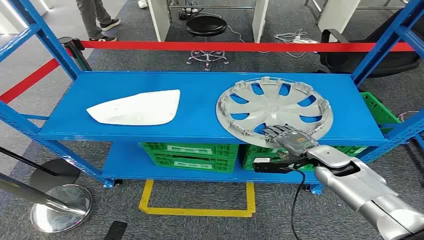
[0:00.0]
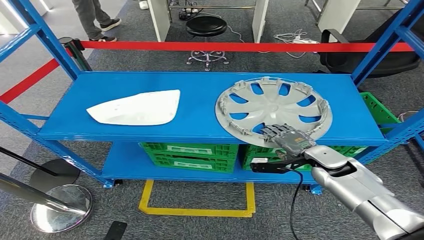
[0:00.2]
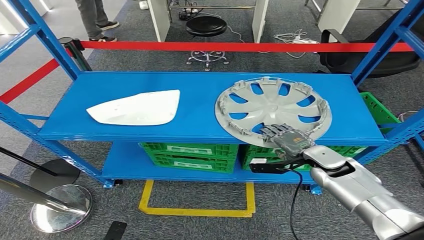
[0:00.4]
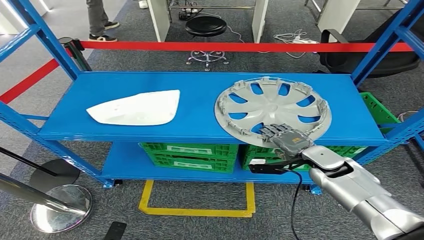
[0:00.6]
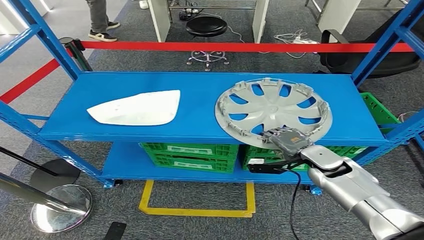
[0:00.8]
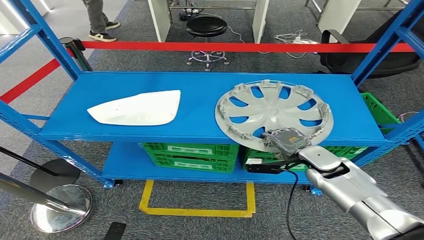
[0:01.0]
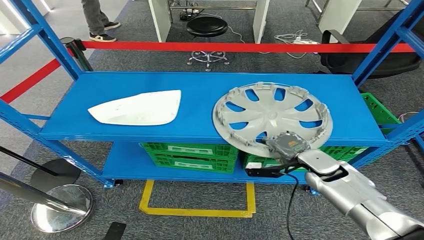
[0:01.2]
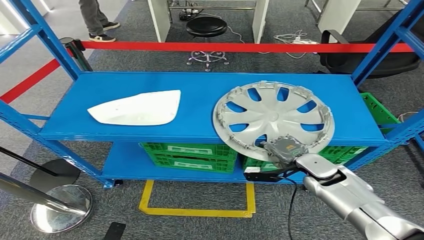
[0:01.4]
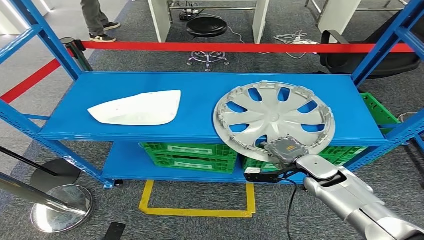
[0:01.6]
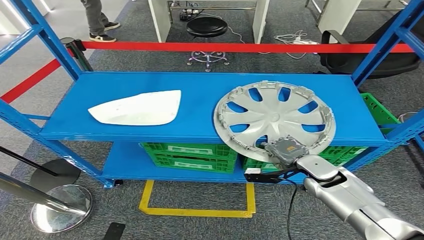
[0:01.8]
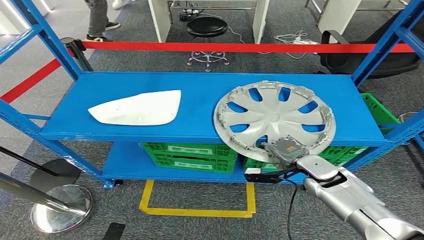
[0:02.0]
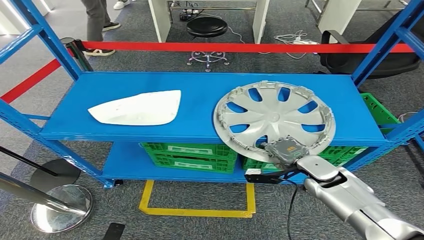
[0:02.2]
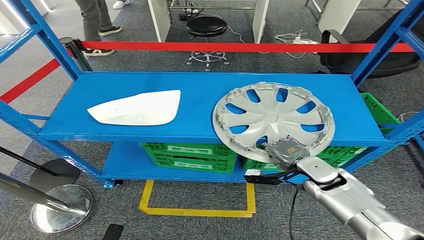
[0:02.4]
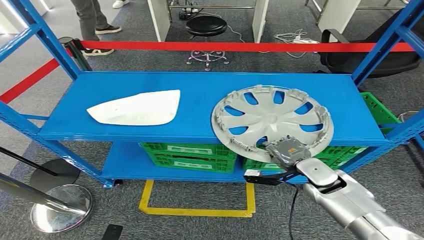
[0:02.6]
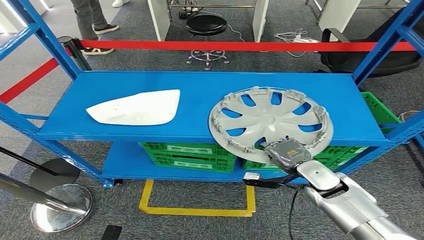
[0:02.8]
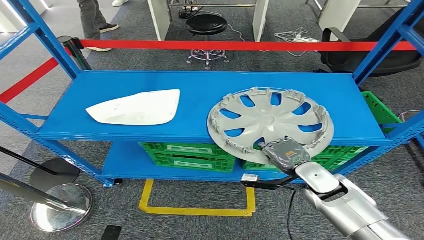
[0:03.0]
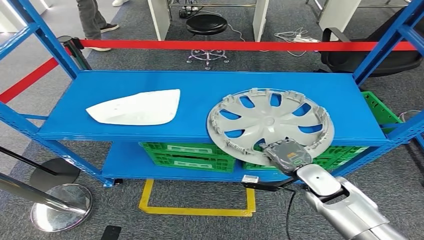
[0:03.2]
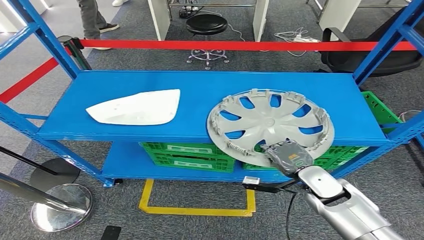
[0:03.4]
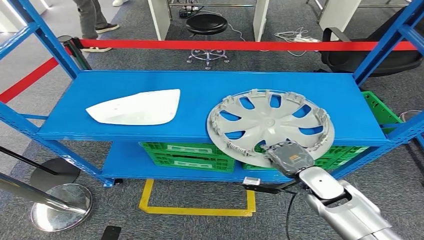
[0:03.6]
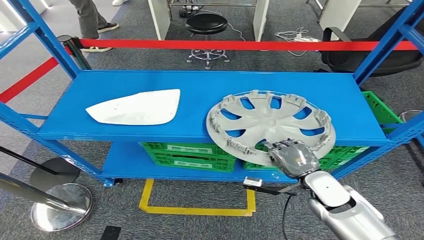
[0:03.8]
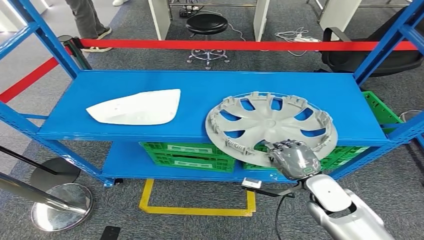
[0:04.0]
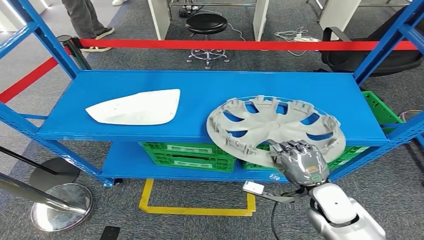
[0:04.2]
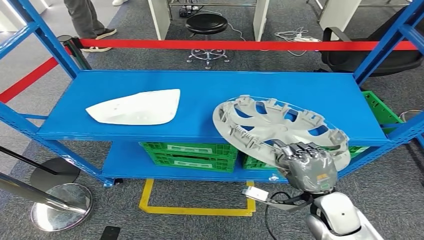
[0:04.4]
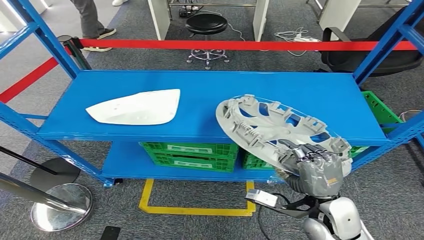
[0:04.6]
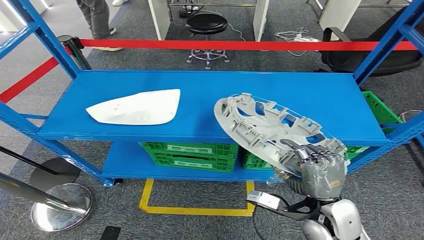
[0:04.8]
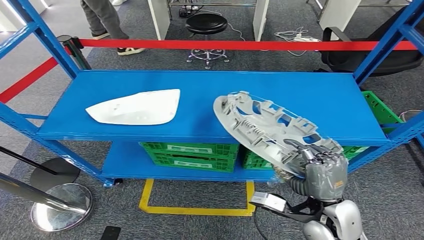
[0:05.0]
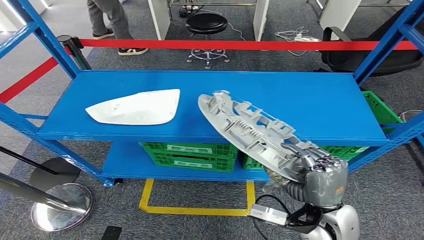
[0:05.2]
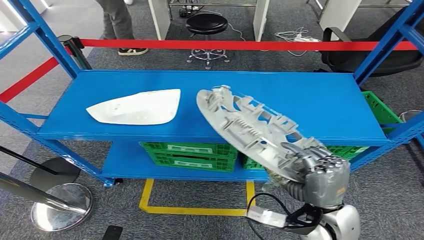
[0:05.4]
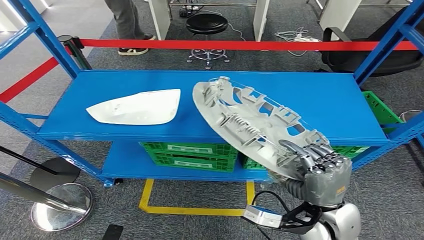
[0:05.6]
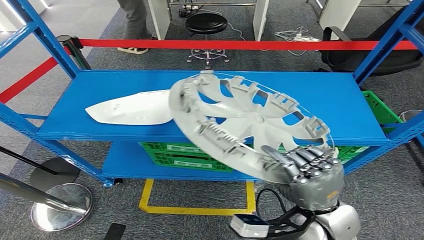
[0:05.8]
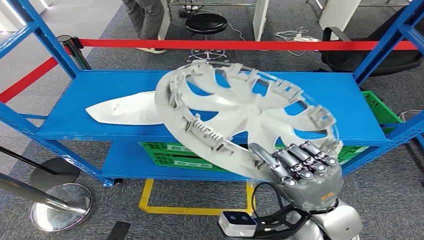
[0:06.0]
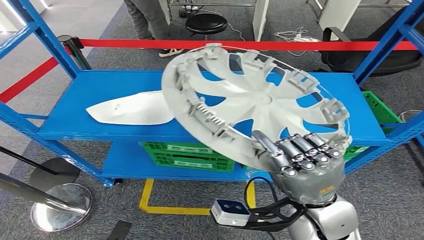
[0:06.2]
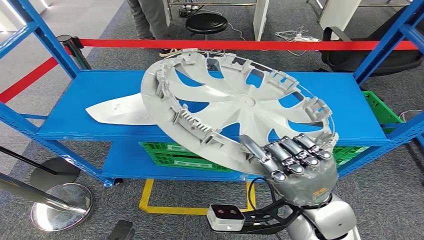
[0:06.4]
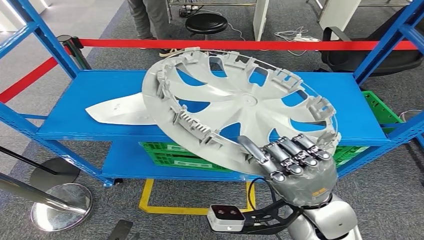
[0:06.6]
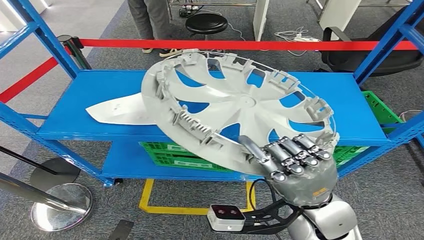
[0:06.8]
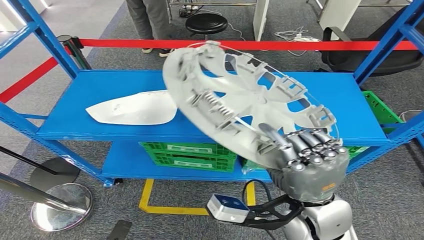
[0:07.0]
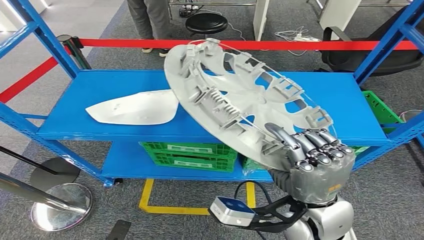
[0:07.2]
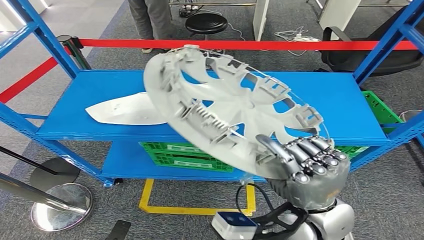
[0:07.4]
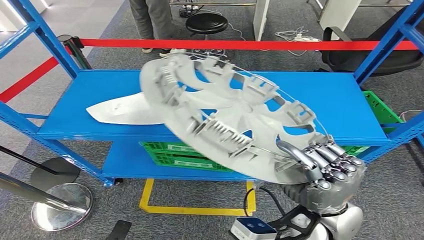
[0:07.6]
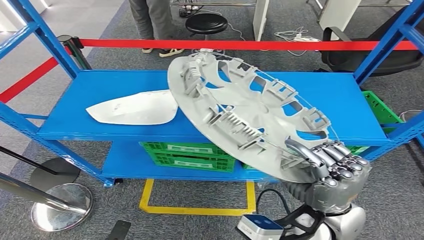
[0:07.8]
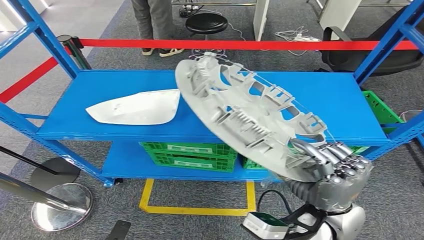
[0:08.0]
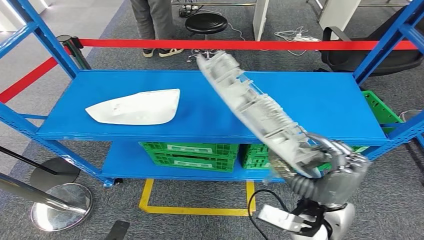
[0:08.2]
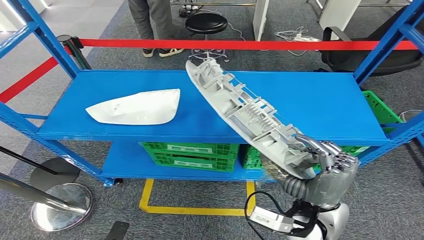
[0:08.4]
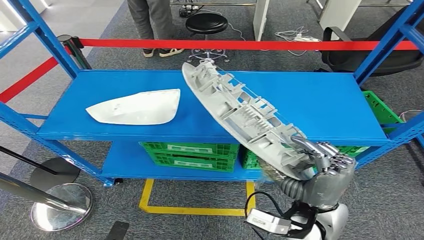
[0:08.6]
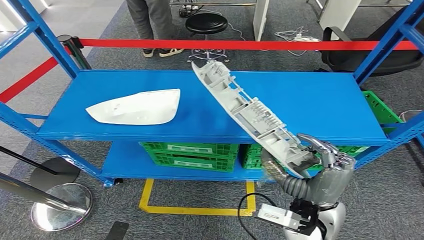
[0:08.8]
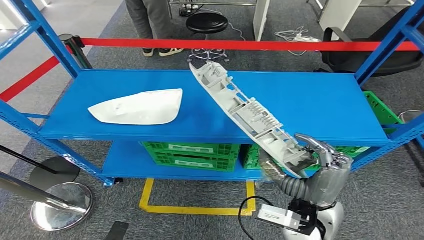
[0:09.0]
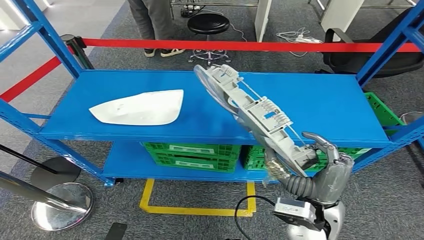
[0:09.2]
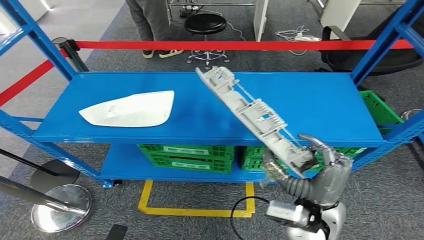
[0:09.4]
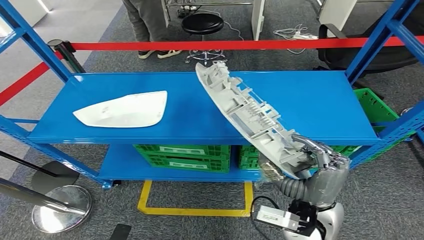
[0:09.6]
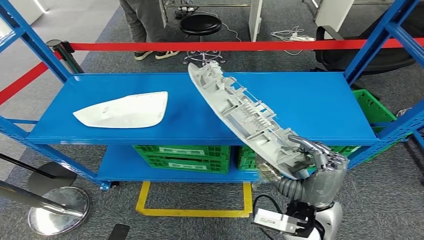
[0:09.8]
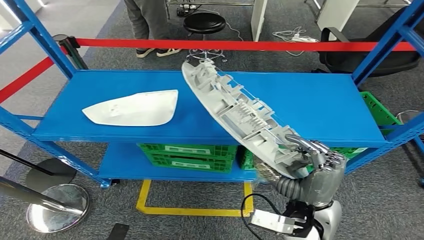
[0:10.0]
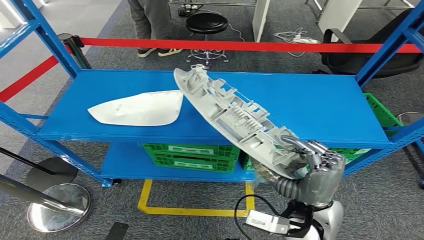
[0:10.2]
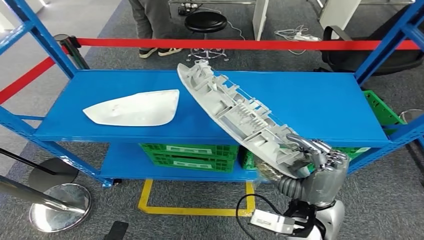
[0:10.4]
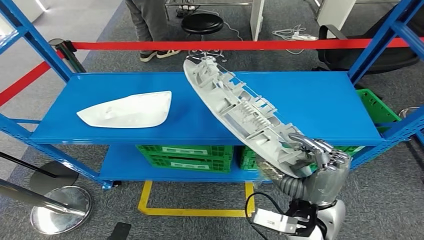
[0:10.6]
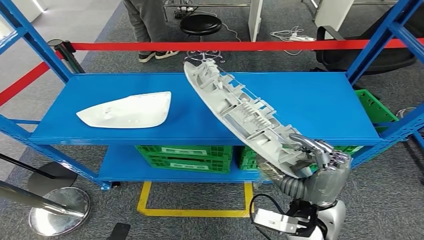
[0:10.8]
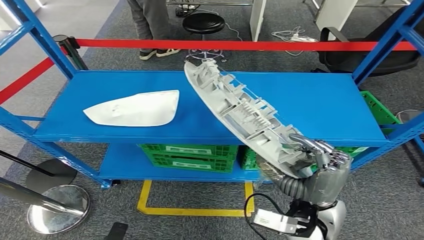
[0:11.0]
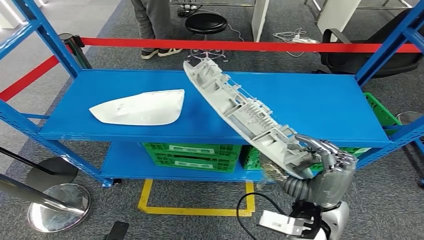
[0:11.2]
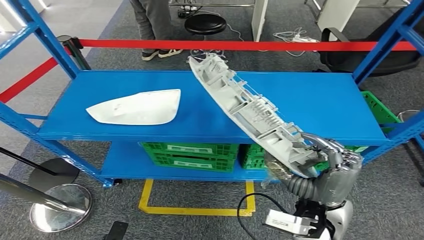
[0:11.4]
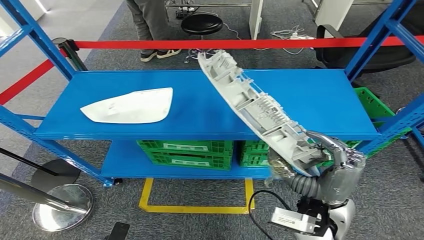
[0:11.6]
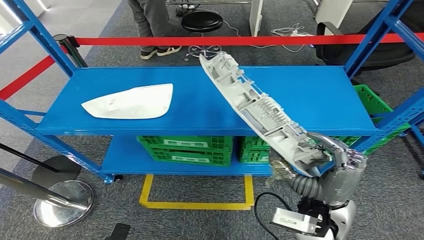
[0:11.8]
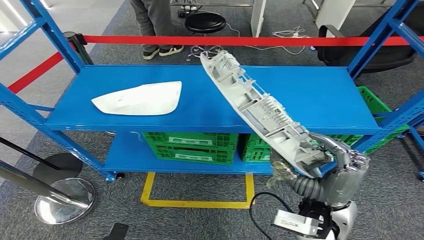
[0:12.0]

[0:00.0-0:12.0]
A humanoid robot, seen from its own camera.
Step, 0:00.0 to 0:10.4: Pick up the small component from the shelf.
0:01.6 to 0:03.0: There are only small adjustments of the hands.
0:03.0 to 0:04.4: The right hand shifts approximately 10 cm backward.
0:06.0 to 0:07.6: The hands move only a little.
0:09.0 to 0:10.4: The hands stay close to where they were, moving slightly.

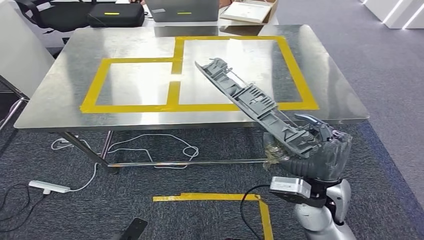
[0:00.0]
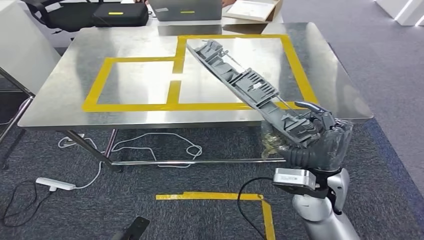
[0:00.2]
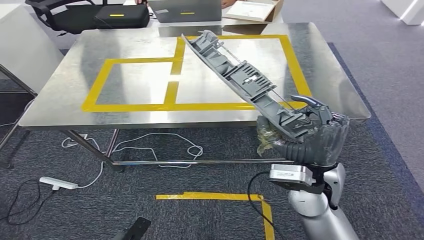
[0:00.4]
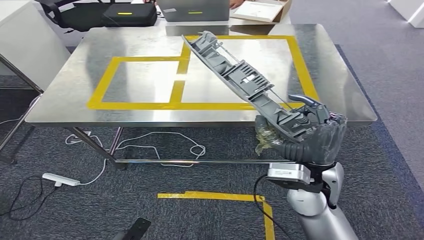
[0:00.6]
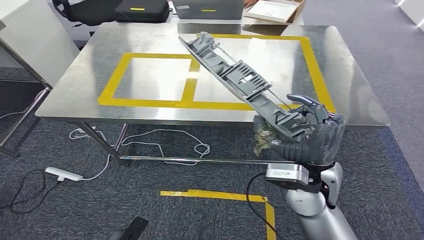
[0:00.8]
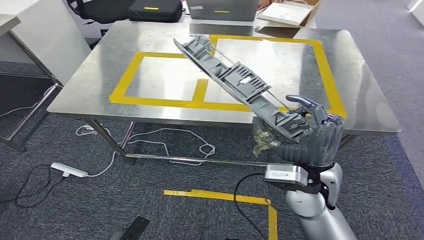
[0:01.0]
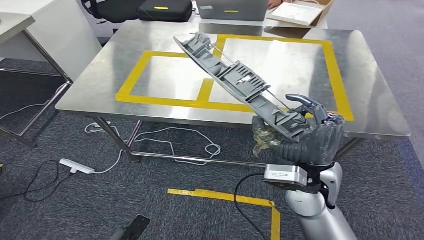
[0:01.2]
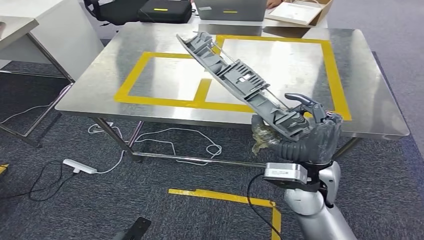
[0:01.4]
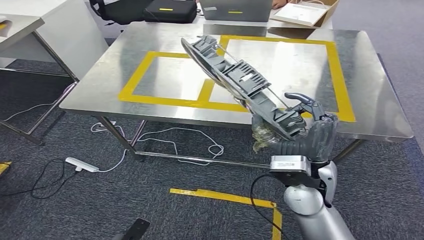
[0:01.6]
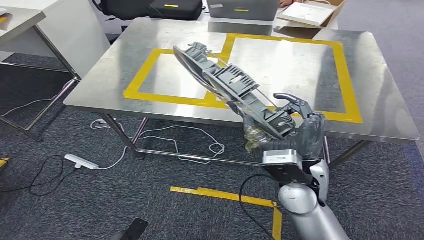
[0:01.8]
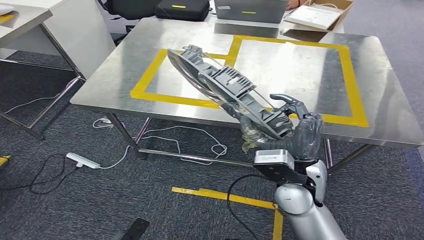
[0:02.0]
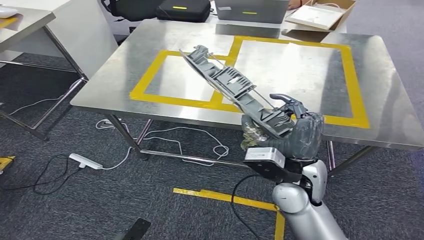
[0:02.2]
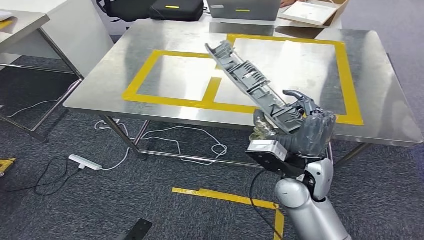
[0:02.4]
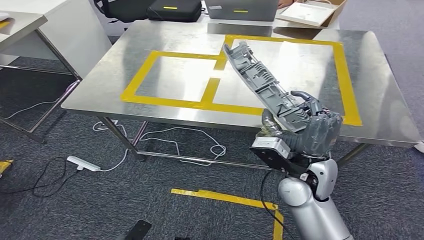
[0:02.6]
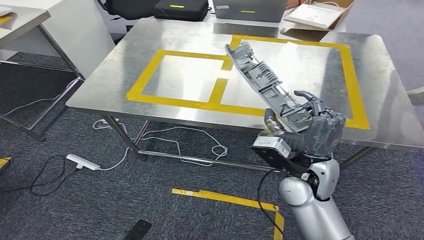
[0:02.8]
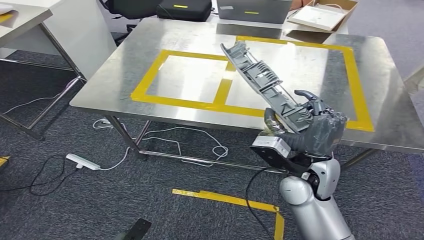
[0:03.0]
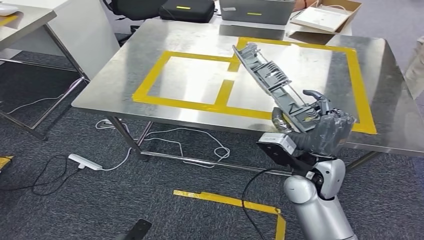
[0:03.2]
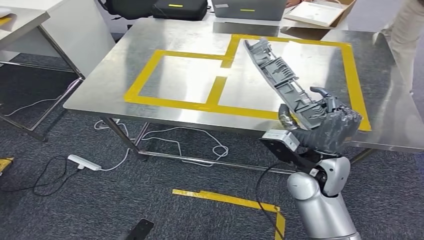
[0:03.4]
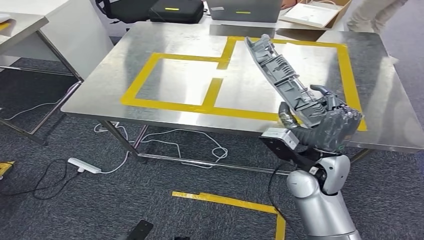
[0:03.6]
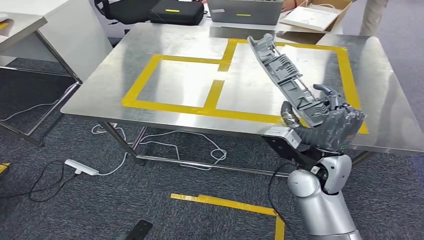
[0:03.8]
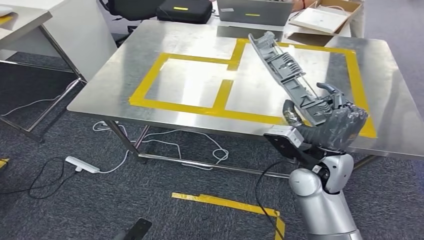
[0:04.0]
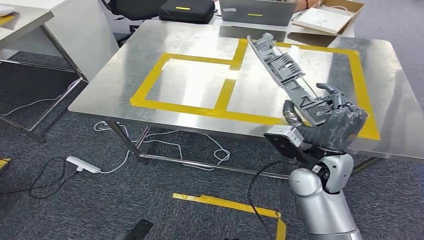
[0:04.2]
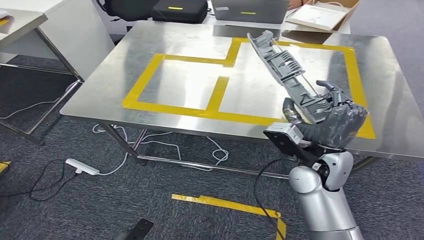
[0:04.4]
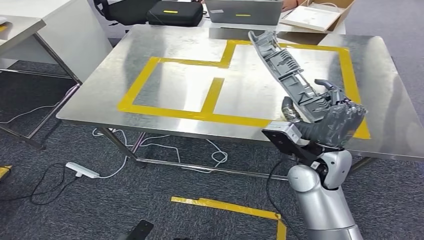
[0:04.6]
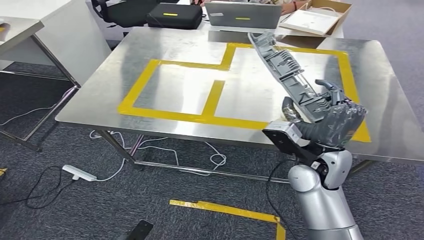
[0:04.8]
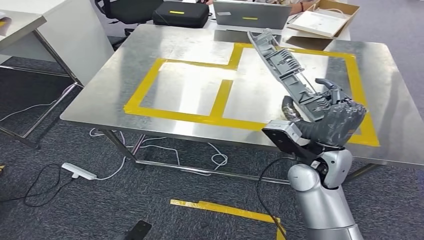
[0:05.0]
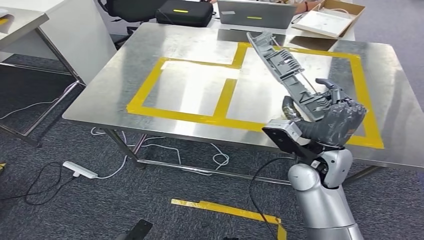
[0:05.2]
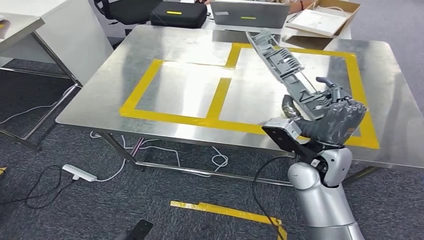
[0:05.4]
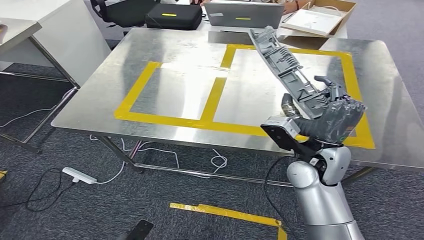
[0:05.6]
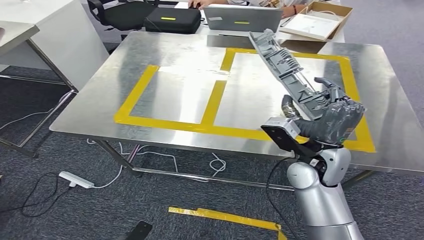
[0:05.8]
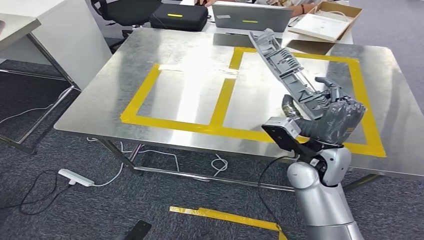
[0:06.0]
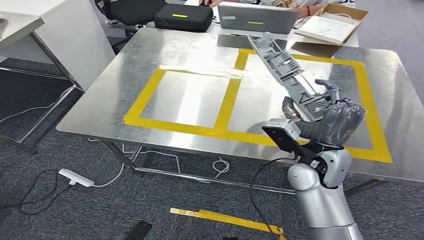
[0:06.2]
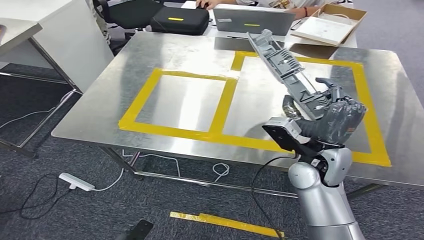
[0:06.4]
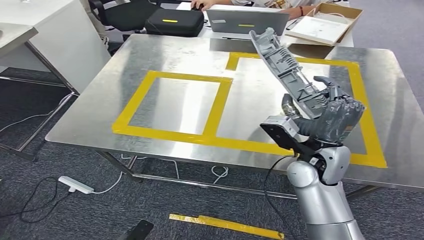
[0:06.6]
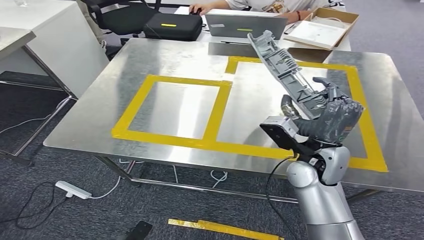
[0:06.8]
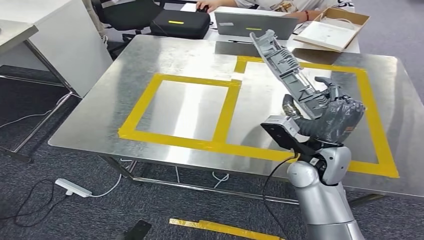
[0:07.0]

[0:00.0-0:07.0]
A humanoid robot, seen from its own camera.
Step, 0:00.0 to 0:03.0: Move the small component to the workbench.
